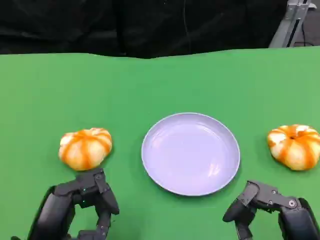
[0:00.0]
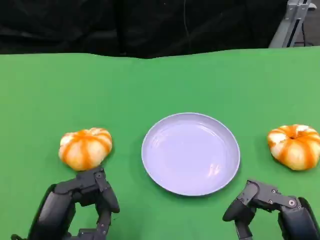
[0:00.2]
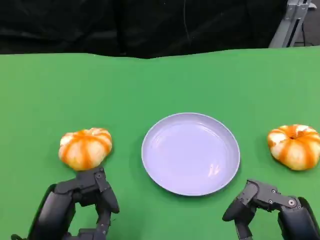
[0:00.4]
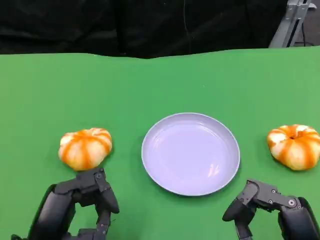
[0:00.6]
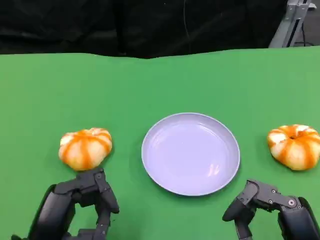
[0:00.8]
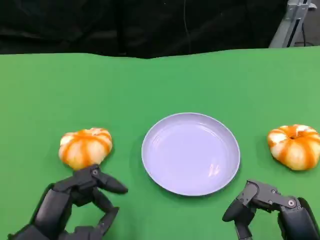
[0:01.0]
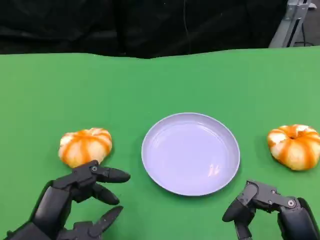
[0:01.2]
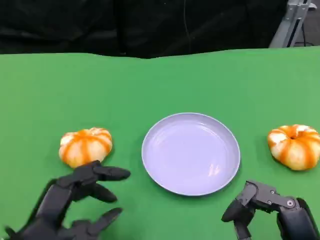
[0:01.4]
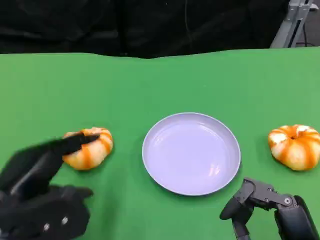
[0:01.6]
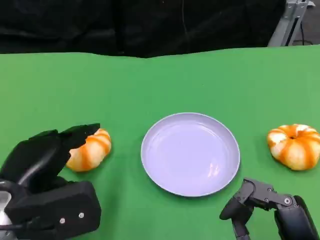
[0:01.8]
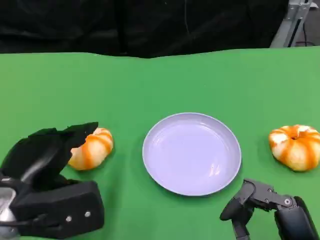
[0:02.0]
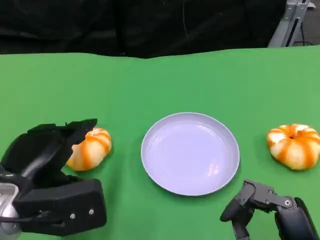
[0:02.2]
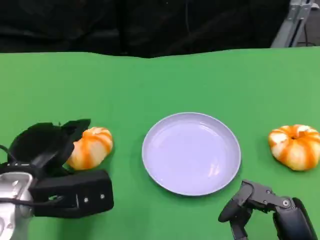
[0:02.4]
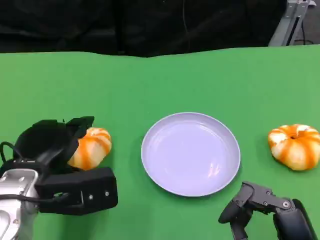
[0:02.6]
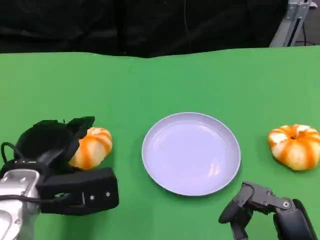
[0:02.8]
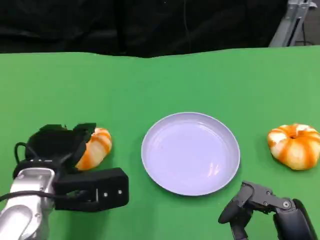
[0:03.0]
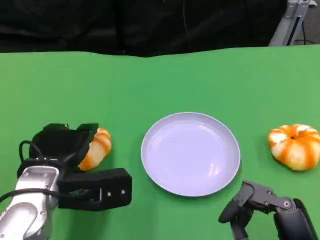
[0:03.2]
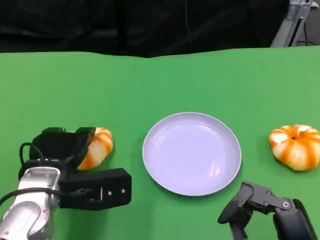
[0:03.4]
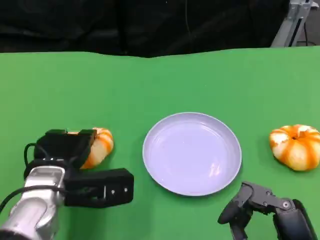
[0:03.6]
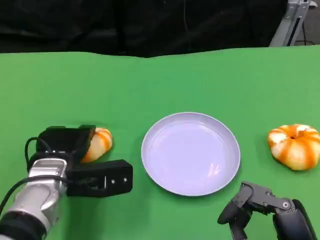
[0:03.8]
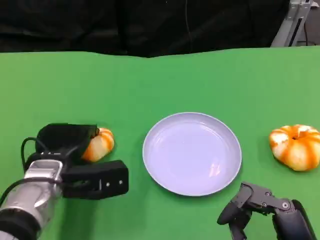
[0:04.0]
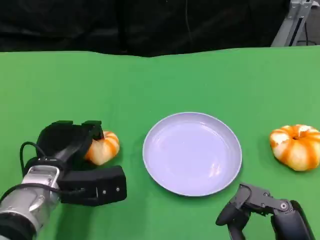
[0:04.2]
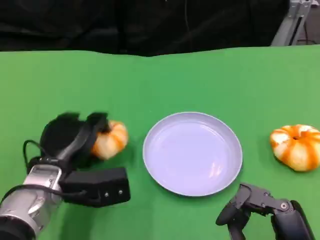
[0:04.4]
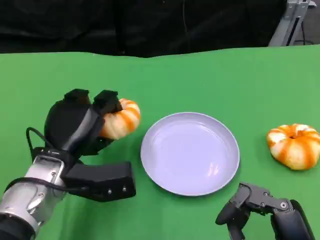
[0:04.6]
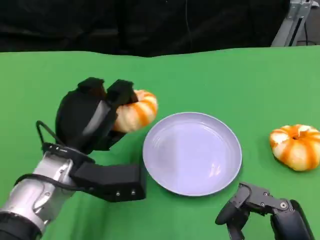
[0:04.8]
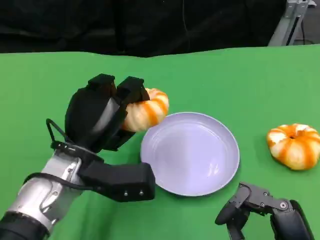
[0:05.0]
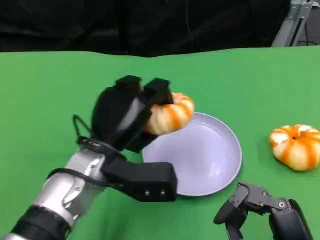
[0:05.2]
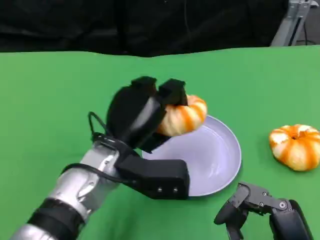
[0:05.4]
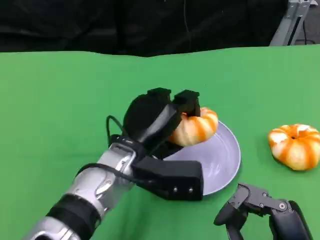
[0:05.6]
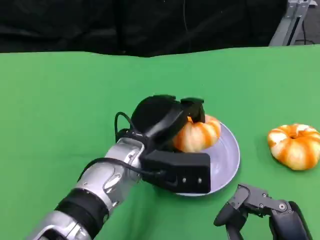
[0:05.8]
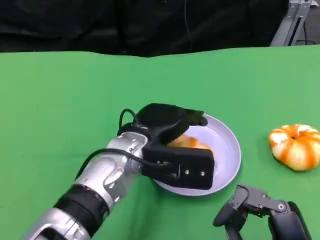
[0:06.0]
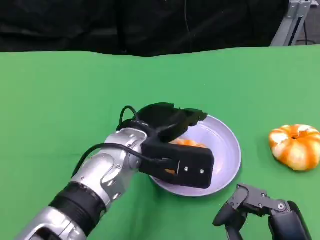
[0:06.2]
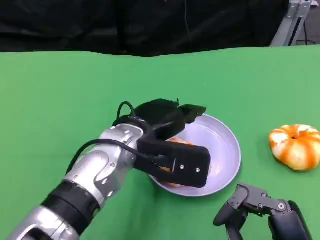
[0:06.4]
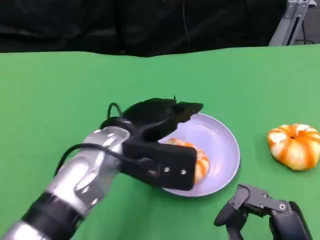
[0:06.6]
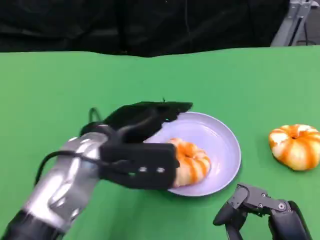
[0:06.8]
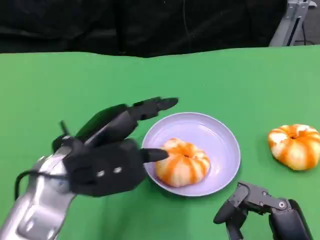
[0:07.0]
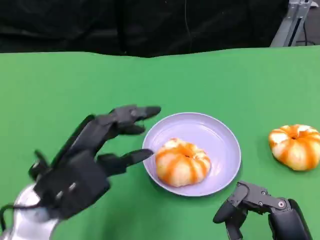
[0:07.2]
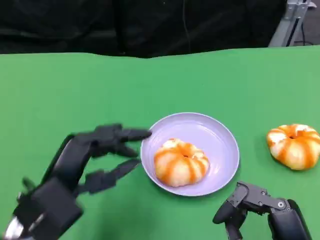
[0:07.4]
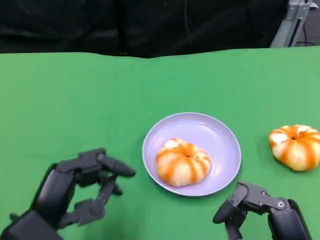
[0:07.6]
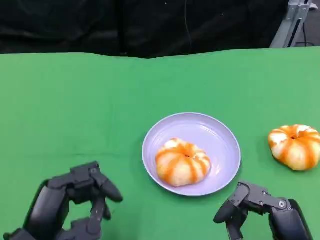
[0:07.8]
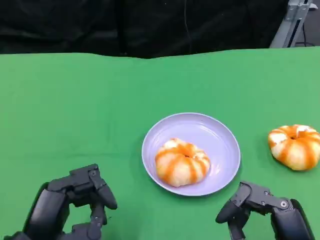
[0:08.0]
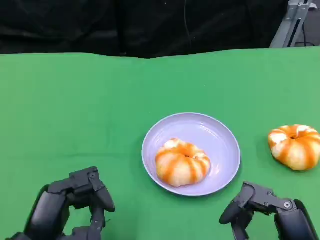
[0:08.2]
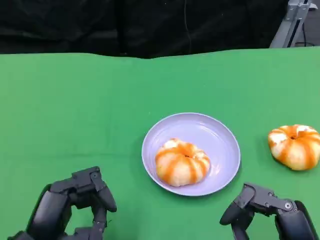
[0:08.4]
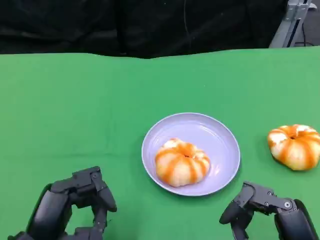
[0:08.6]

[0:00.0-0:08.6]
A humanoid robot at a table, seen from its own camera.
Task of the whole recording: Grasp the bread from the table and place it into the plate.
0:00.0 to 0:01.4: The hands make only small movements.
0:01.4 to 0:02.8: The left hand goes roughly 10 cm forward.
0:02.8 to 0:04.4: The left hand ends up approximately 5 cm from where it was.
0:04.4 to 0:05.8: The left hand travels to the right by roughly 10 cm.
0:05.8 to 0:07.2: The left hand moves to the left and backward, approximately 15 cm.
0:07.2 to 0:08.6: The left hand heads backward and downward, covering roughly 10 cm.

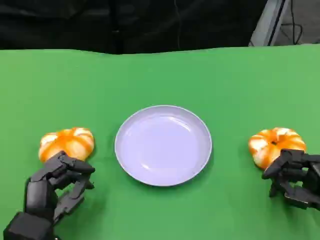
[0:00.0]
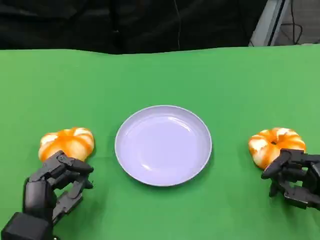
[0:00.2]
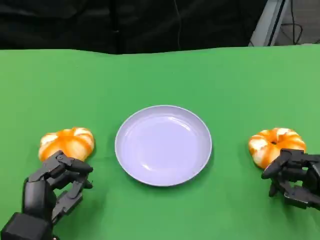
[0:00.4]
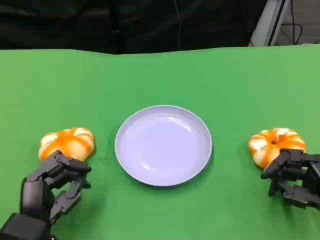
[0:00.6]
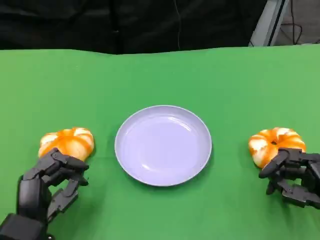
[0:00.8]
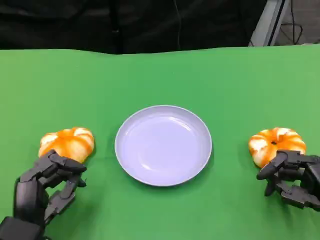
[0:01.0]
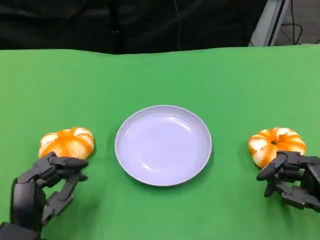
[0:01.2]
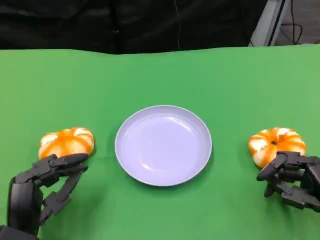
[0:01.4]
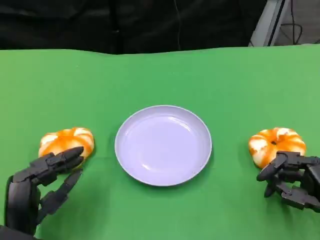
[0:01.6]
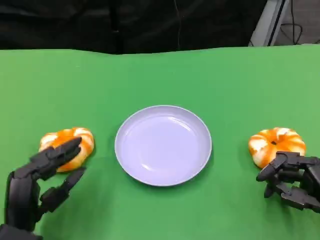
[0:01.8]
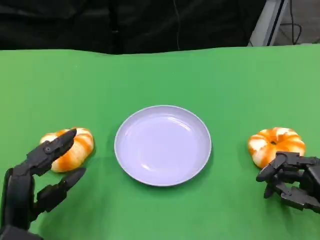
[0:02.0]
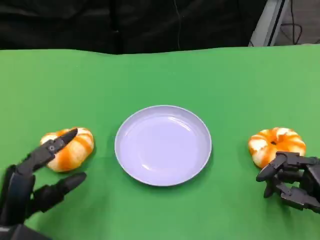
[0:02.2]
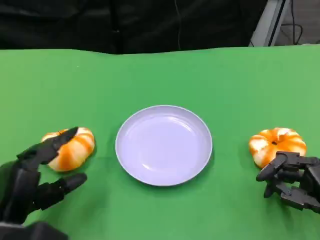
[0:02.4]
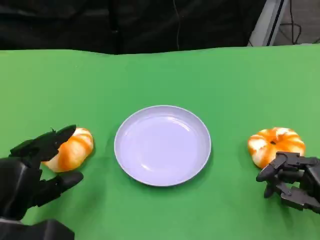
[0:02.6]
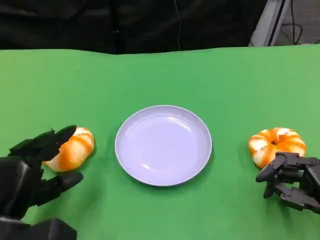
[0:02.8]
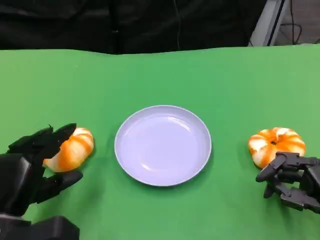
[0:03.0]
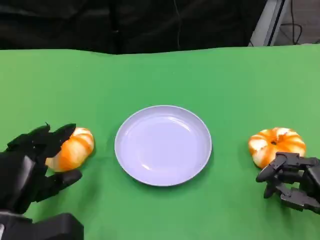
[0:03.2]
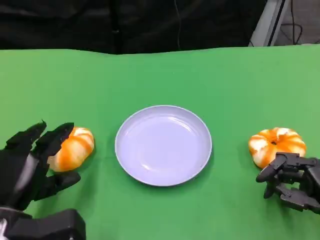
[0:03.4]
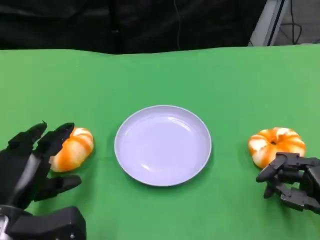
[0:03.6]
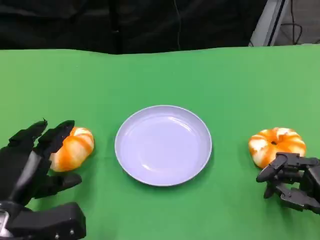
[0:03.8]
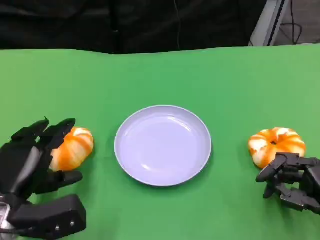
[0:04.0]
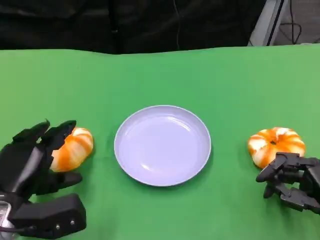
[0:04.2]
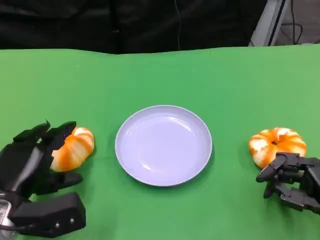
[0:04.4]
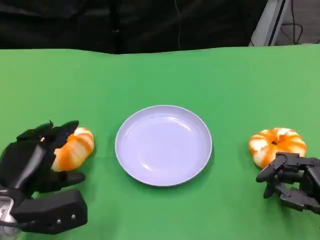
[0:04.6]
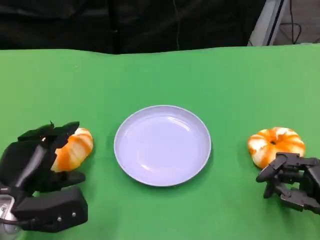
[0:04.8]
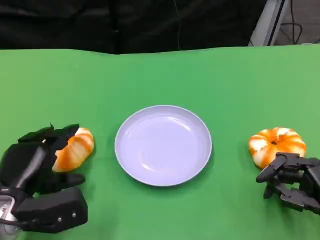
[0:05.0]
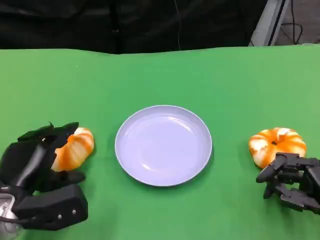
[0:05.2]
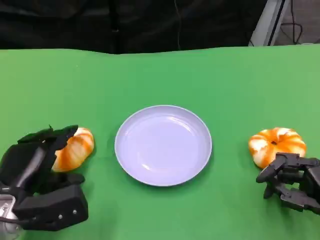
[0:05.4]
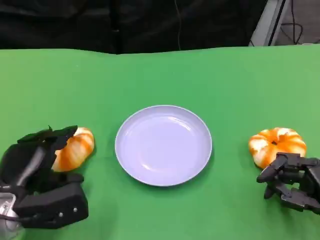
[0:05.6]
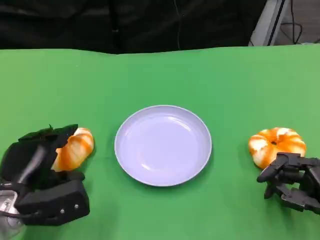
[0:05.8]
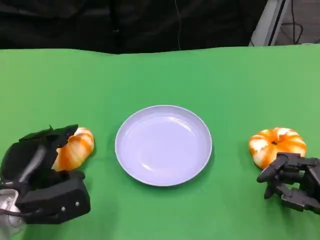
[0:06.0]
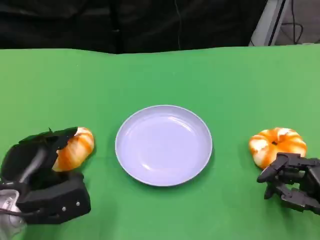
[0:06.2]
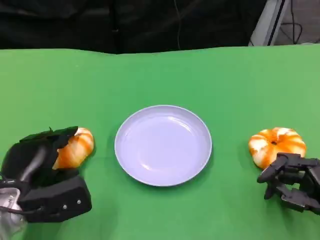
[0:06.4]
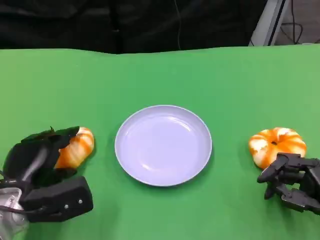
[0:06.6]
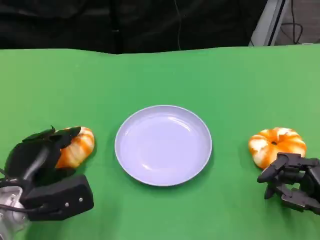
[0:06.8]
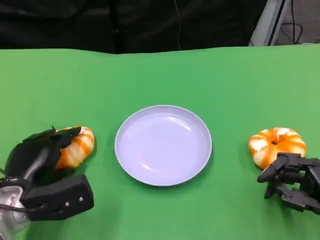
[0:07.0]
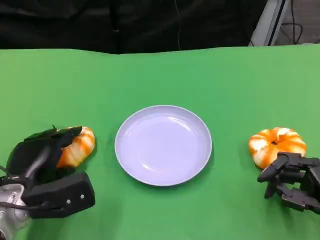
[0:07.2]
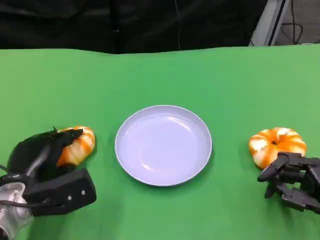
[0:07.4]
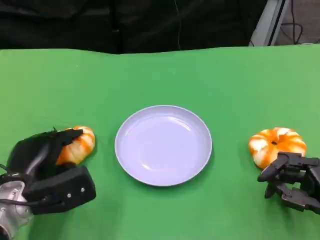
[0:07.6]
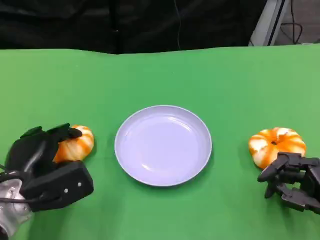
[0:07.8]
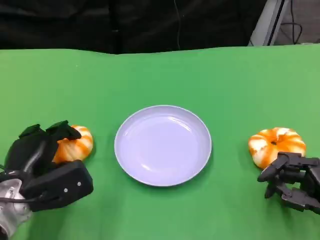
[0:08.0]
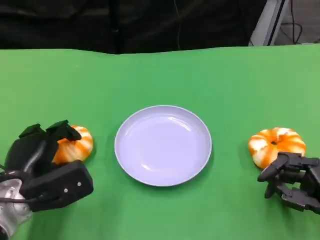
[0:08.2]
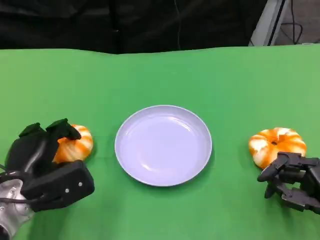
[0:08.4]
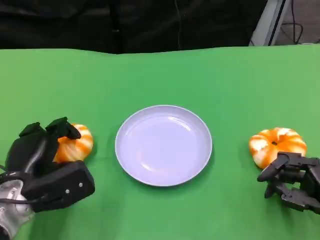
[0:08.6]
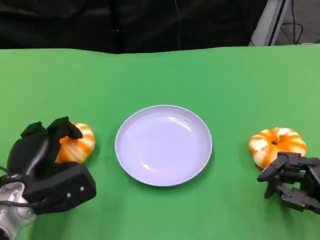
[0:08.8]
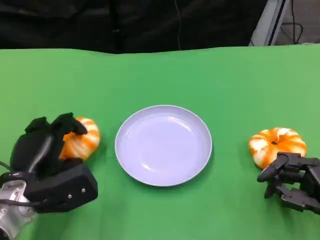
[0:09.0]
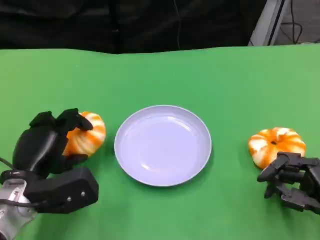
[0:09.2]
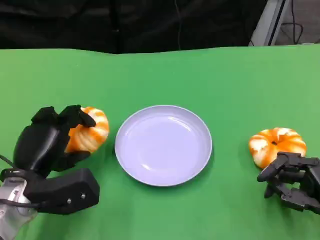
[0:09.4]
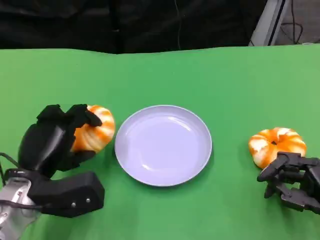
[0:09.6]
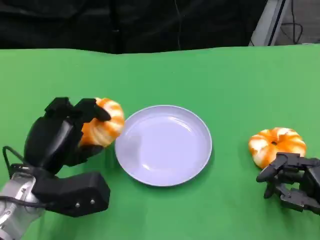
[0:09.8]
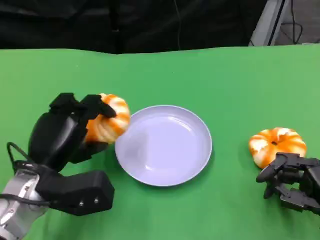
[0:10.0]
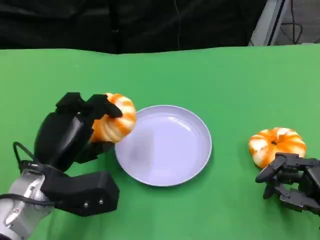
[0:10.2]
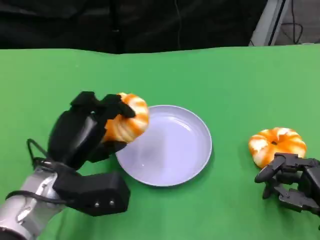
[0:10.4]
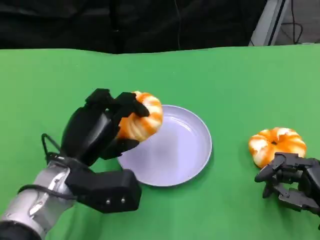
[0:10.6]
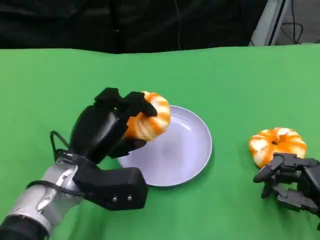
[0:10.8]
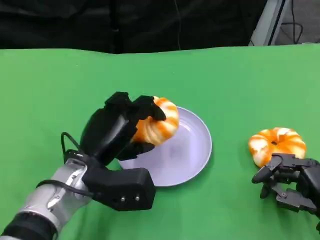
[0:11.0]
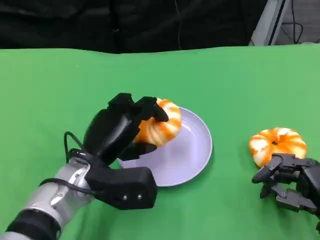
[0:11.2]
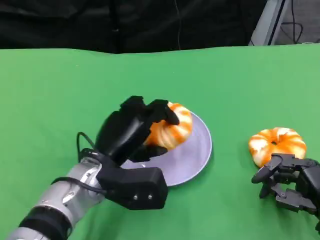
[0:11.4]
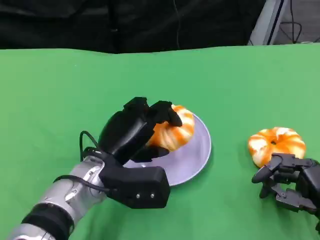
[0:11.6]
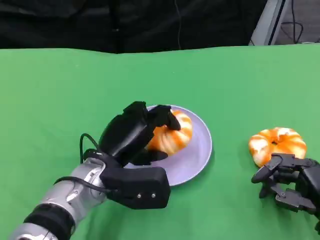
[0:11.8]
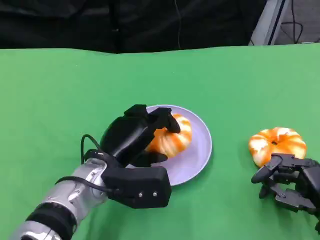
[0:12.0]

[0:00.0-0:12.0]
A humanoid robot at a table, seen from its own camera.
Task of the whole recording: Grasp the bread from the table and place it into the plate.
0:00.0 to 0:01.6: The hands move only a little.
0:03.0 to 0:04.4: The hands make only small movements.
0:04.4 to 0:09.0: There are only small adjustments of the hands.
0:09.0 to 0:10.4: The left hand heads to the right, covering roughly 5 cm.
0:10.4 to 0:12.0: The left hand shifts approximately 5 cm to the right.

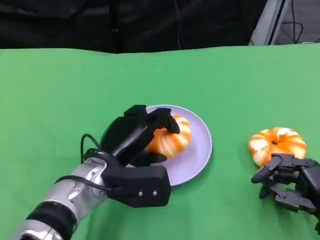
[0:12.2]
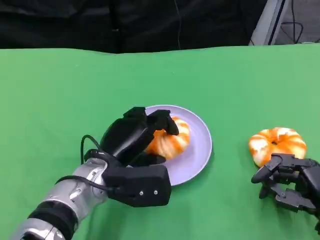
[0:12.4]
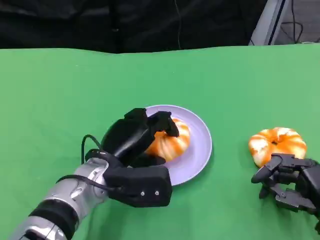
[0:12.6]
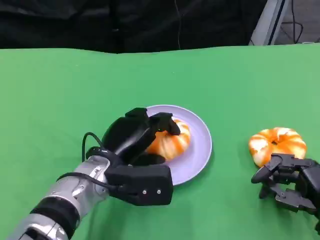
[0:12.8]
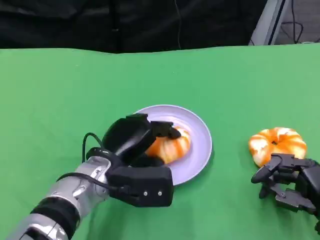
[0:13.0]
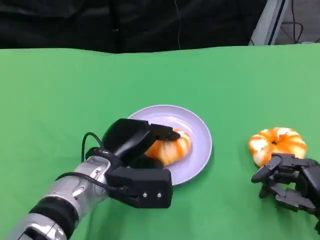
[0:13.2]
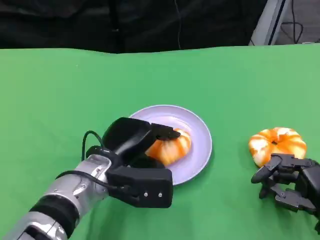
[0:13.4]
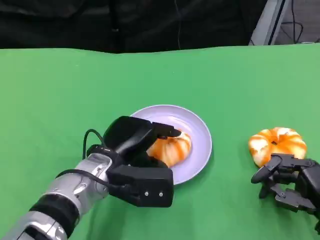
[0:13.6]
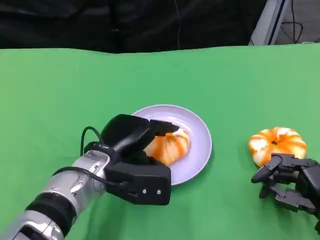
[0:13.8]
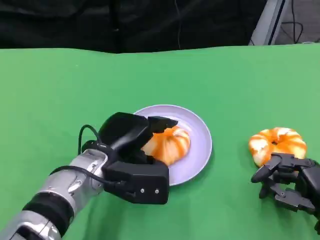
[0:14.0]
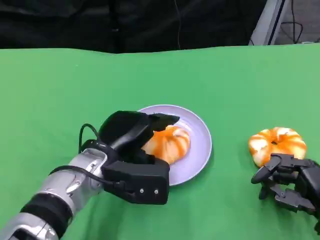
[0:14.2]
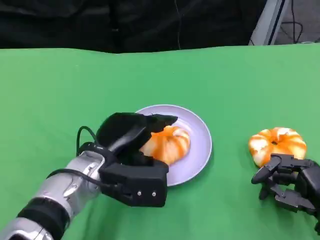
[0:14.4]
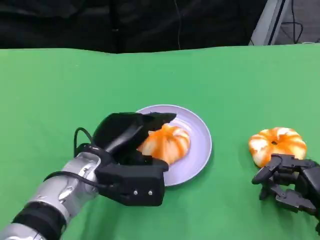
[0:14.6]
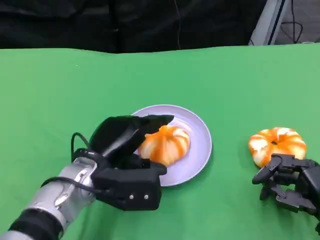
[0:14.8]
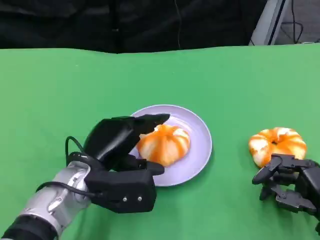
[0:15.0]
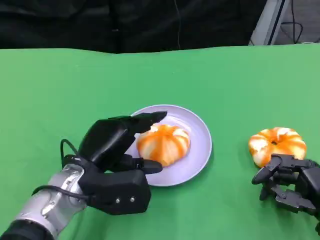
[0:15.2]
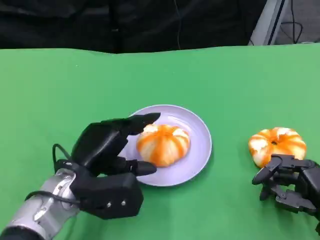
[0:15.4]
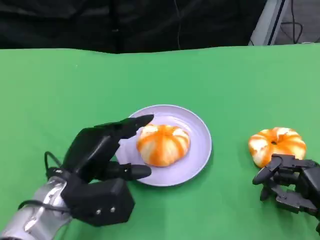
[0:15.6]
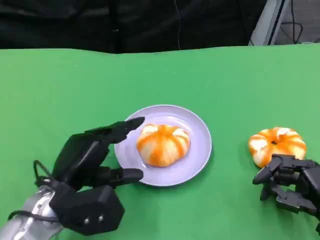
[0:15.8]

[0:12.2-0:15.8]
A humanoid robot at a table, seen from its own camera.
Task of the whole recording: Grasp the bread from the table and place it into the plate.
0:12.2 to 0:14.0: There are only small adjustments of the hands.
0:14.0 to 0:15.8: The left hand goes roughly 5 cm to the left.
